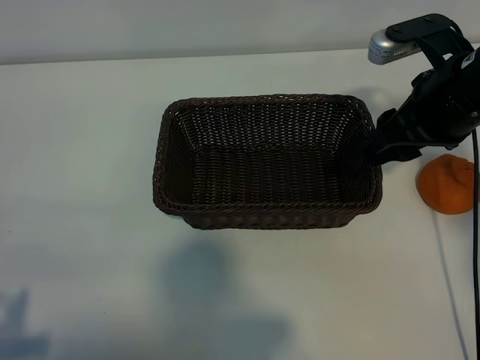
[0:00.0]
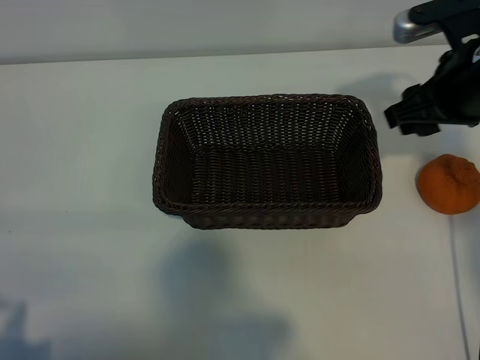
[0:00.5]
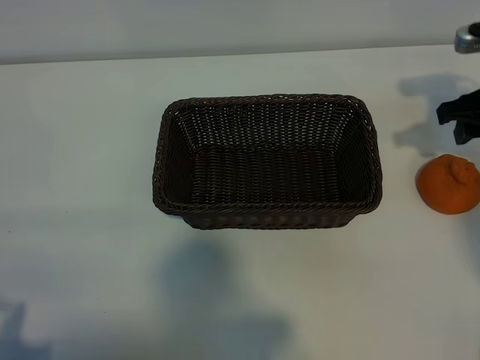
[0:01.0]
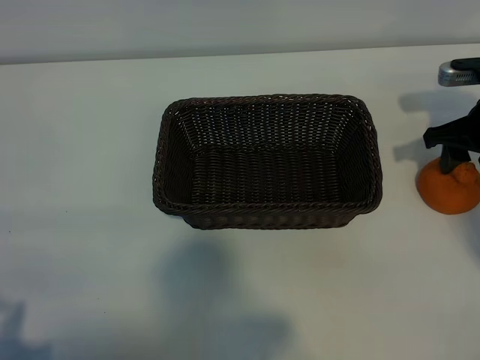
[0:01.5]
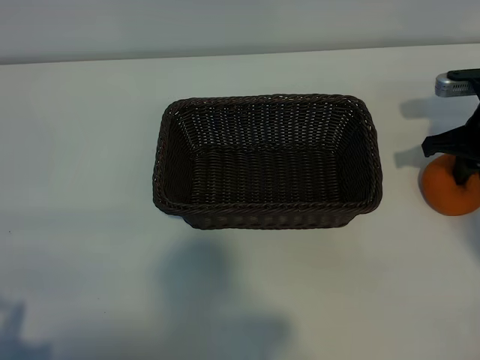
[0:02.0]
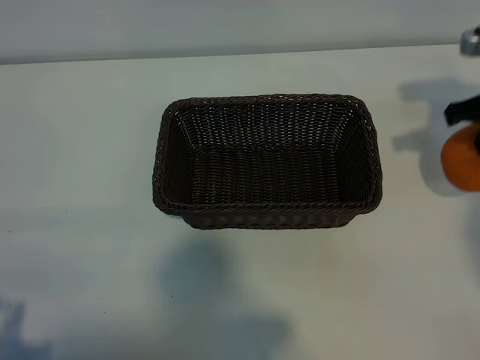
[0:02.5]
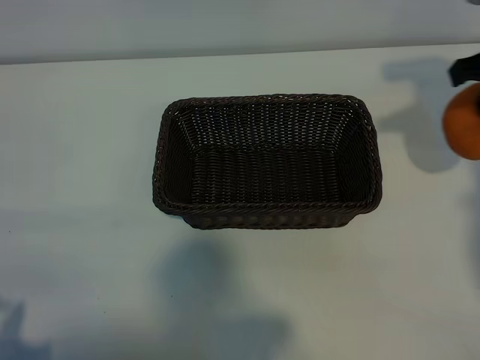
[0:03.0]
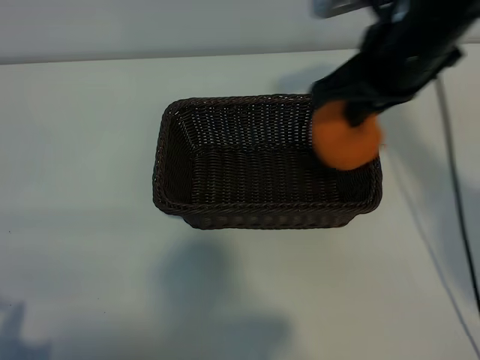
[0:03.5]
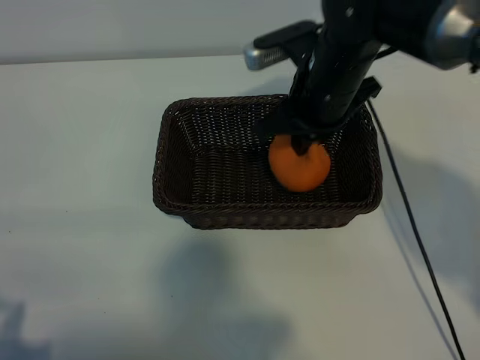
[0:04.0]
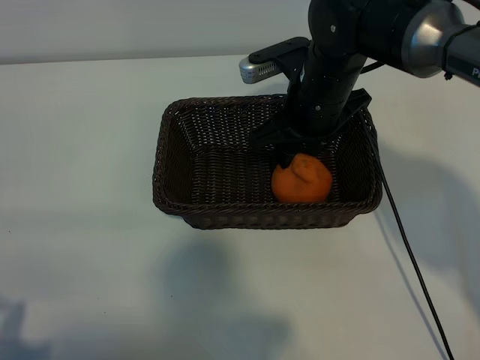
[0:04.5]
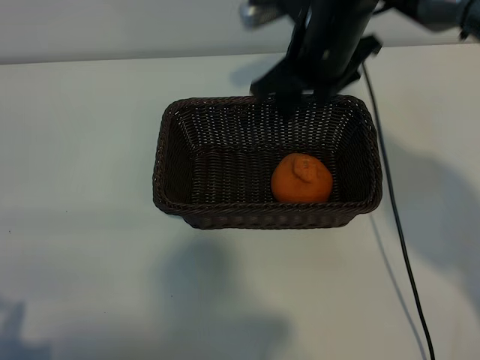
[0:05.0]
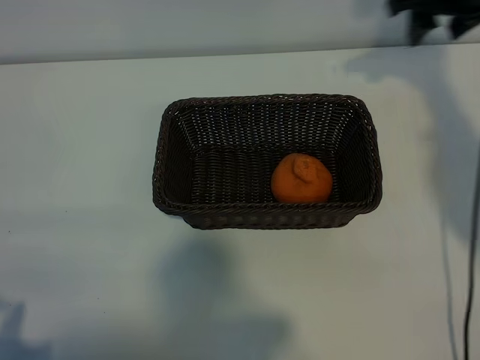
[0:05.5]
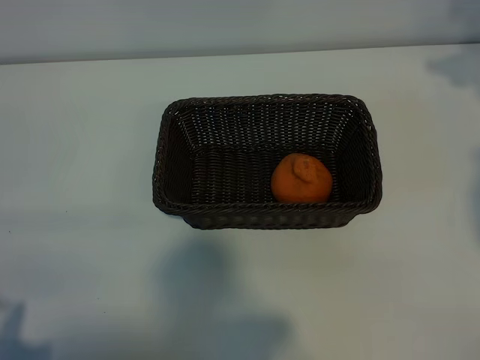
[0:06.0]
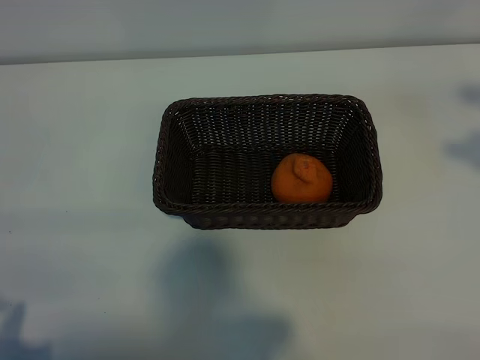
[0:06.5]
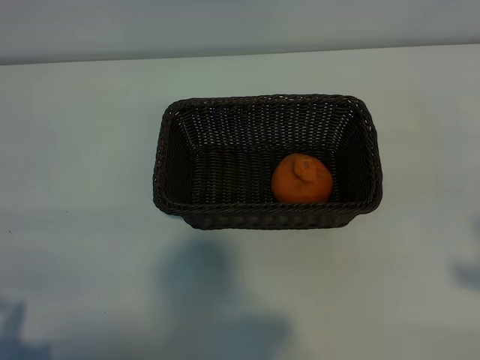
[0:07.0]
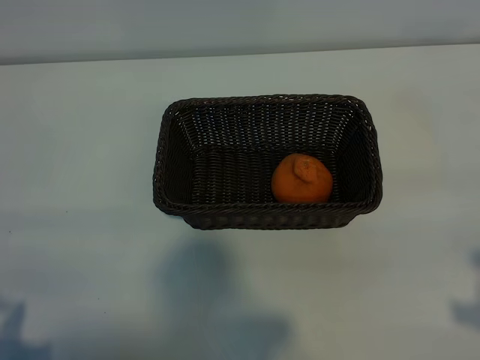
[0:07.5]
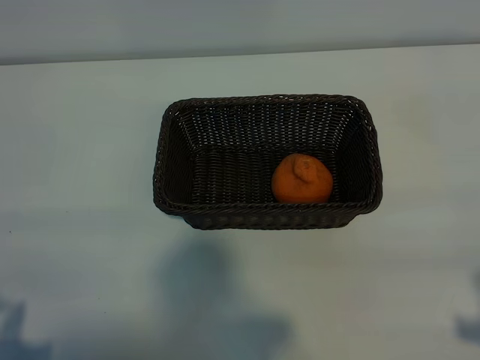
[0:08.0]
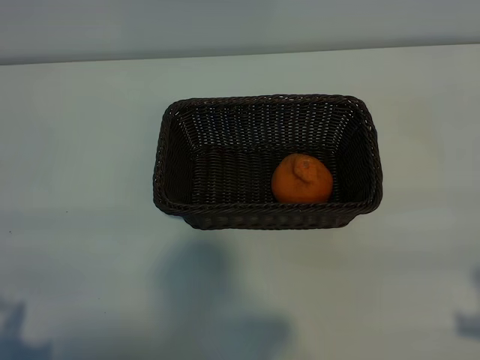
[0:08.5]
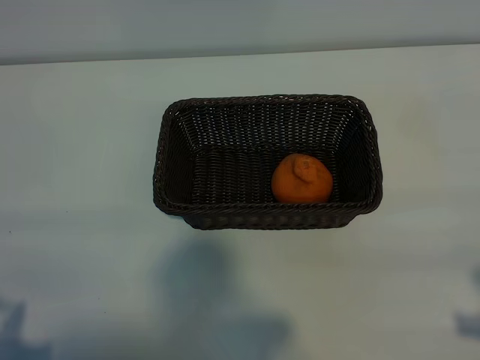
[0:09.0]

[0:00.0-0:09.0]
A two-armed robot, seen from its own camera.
Task of the whole recording: pick up the orange and put it into the basket.
Step, 0:00.0 to 0:02.0: Grasp the orange with right gripper.
Step, 0:02.5 to 0:04.0: Place the orange in the basket with right gripper.
